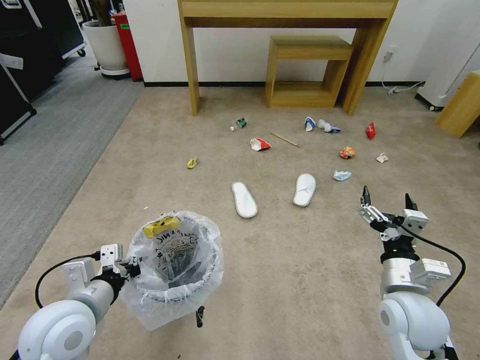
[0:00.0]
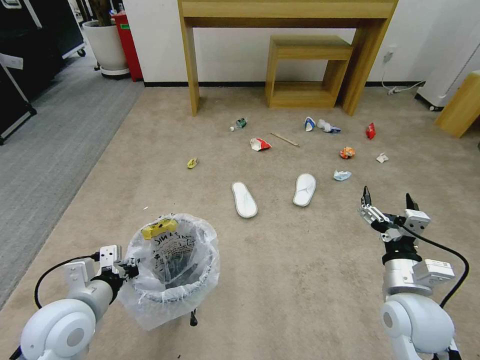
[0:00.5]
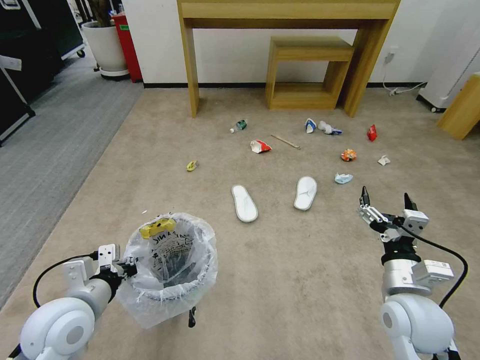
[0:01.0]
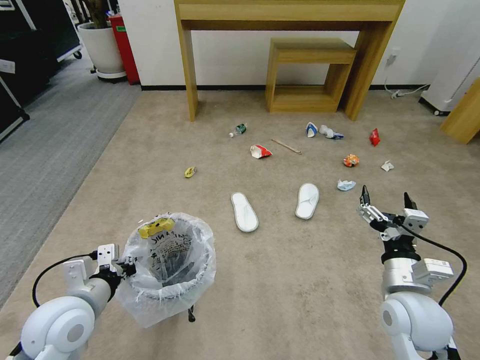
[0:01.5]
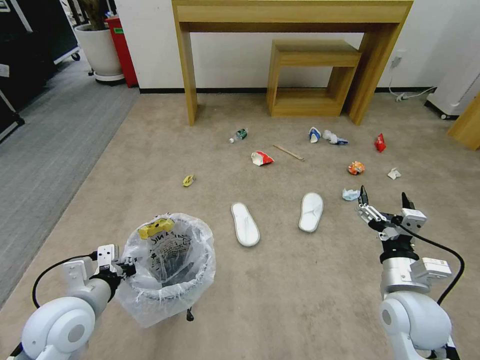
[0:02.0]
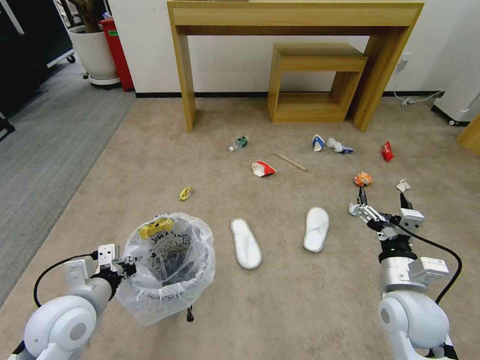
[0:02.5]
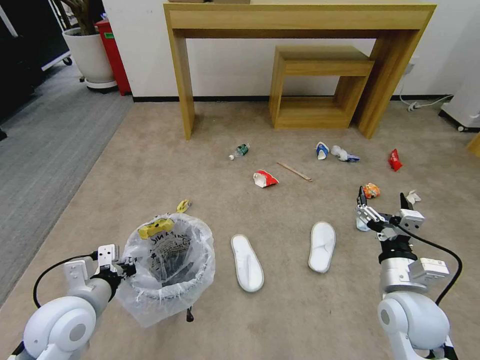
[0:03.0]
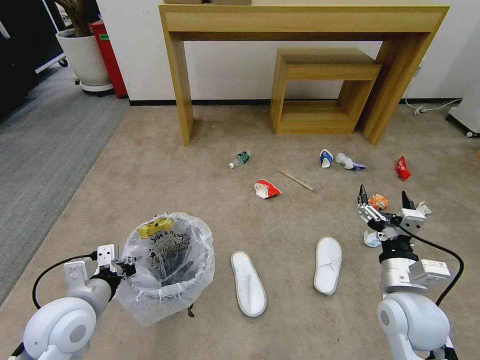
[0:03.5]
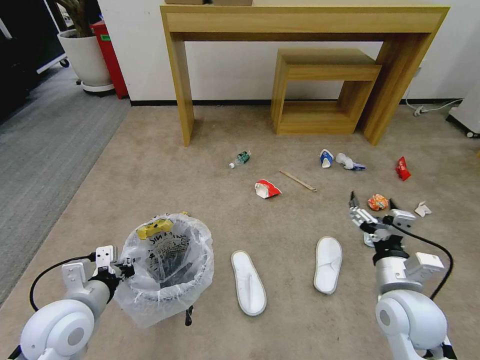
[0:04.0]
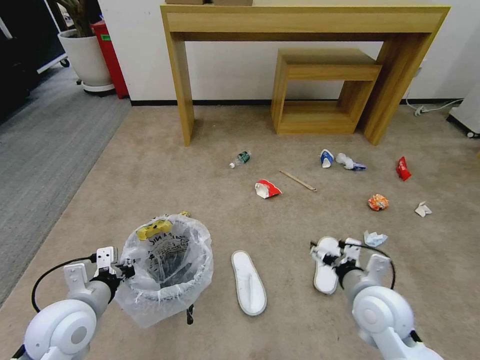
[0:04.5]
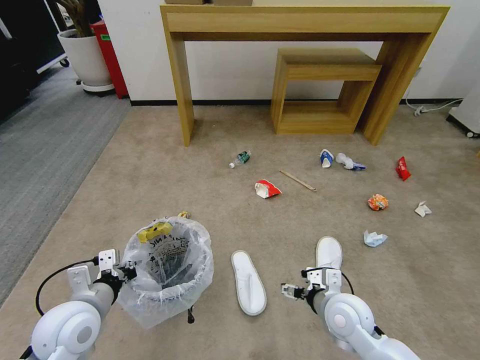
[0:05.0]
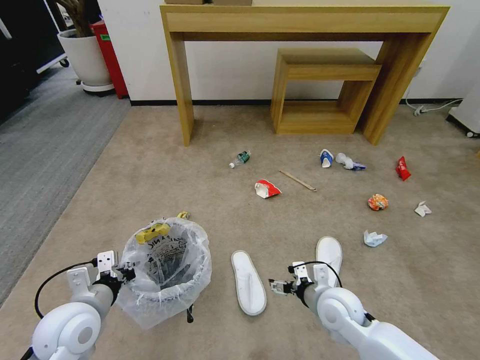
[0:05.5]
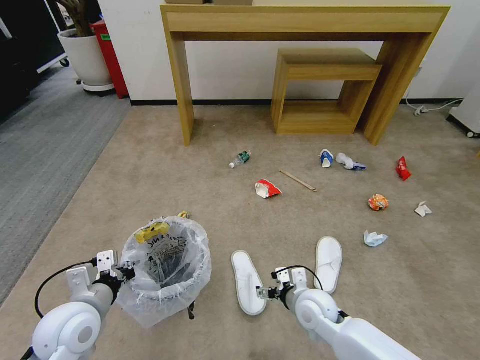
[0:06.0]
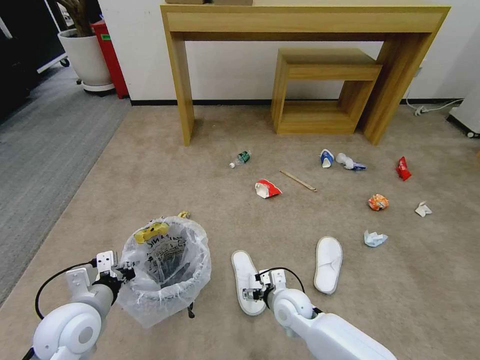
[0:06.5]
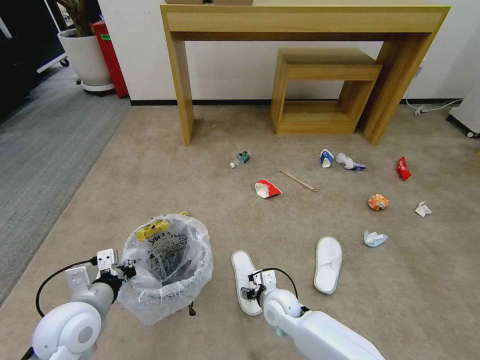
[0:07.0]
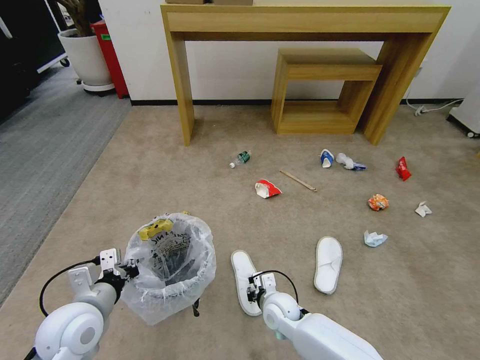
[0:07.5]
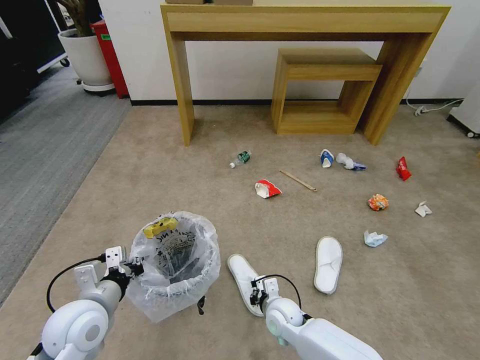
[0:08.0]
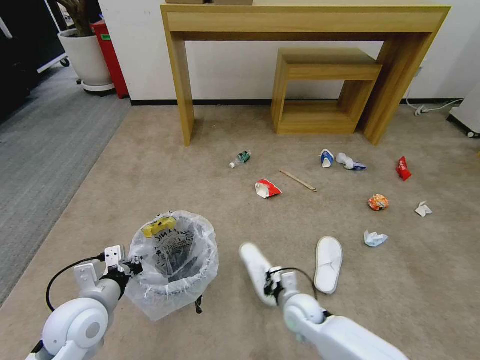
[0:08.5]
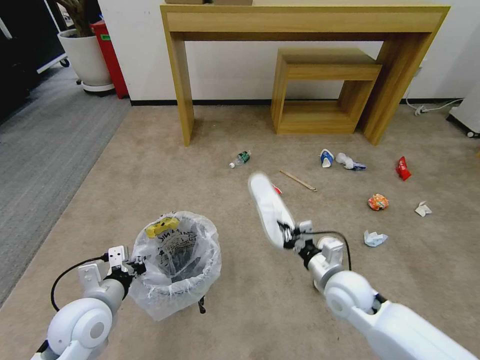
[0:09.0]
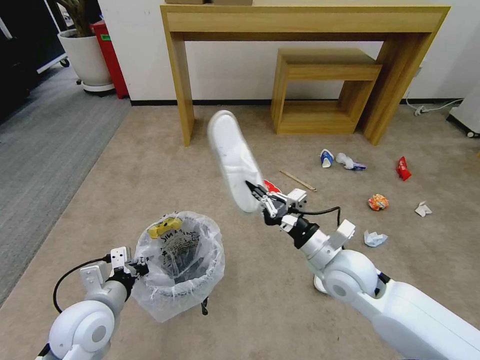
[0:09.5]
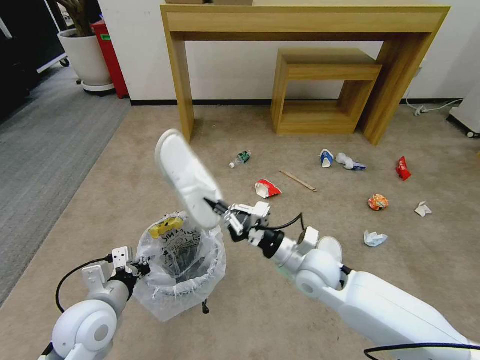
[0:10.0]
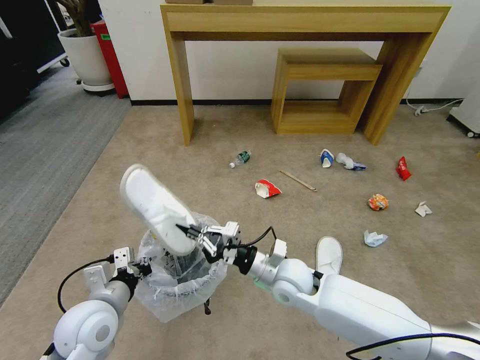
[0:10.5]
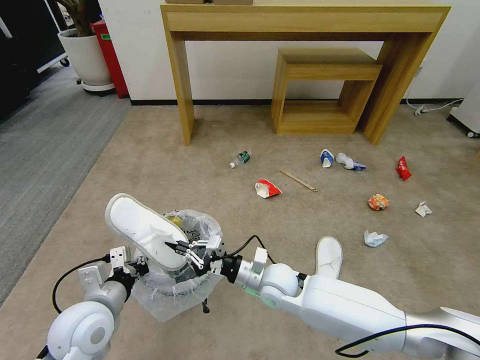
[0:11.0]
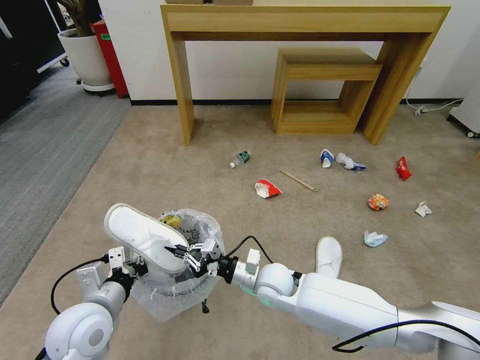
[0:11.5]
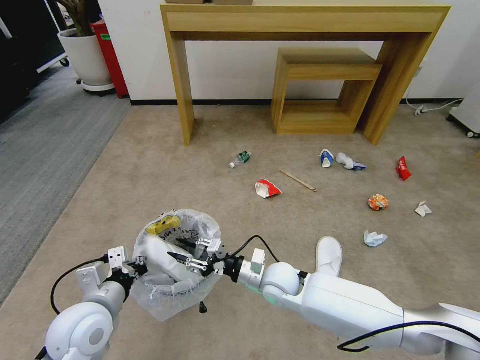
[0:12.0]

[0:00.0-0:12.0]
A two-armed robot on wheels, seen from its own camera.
Task of the whole recording: Pick up the trash bin and place the garbage on the floor into it.
0:00.0 to 0:02.0: The grippers move only a little.
0:04.0 to 0:06.0: The right gripper moves downward and to the left, about 20 cm.
0:06.0 to 0:08.0: The right gripper shifts approximately 10 cm downward and to the left, and closes.
0:08.0 to 0:10.0: The right gripper shifts approximately 20 cm upward.
0:10.0 to 0:12.0: The right gripper heads downward and to the left, covering about 10 cm, and opens its fingers.

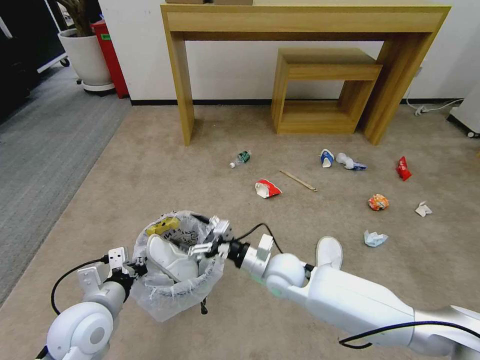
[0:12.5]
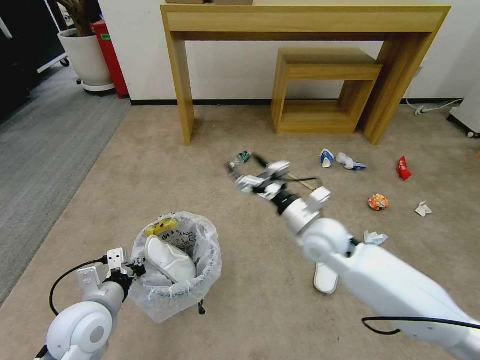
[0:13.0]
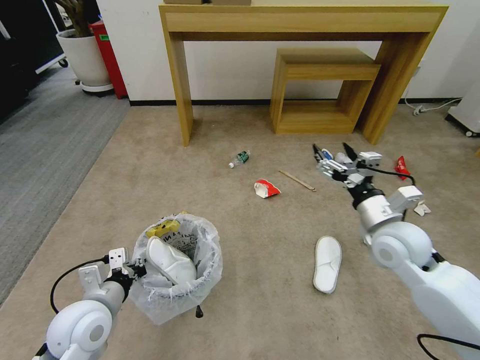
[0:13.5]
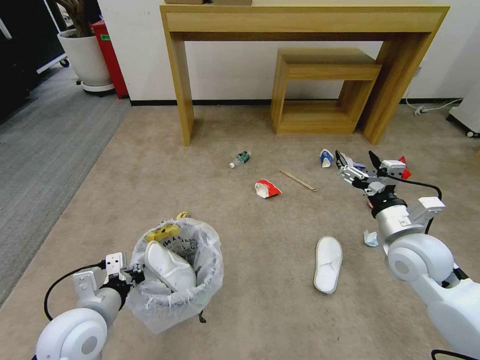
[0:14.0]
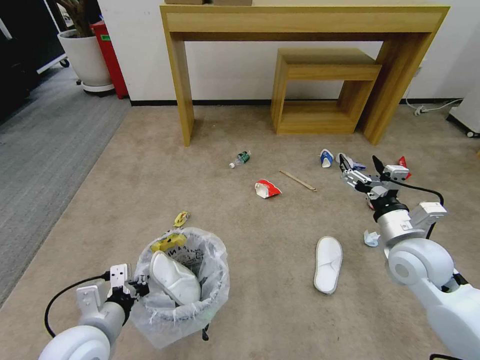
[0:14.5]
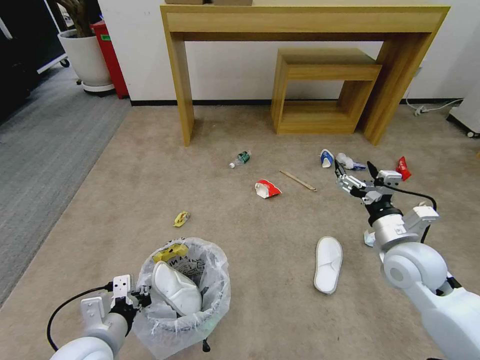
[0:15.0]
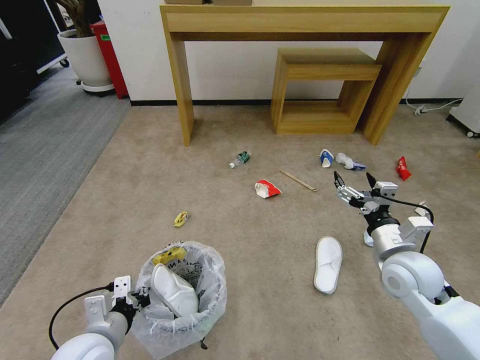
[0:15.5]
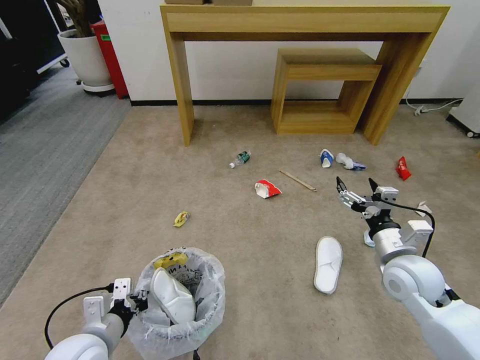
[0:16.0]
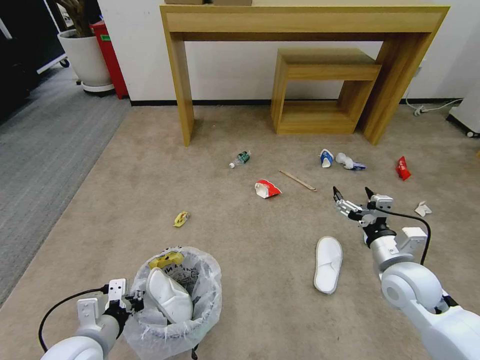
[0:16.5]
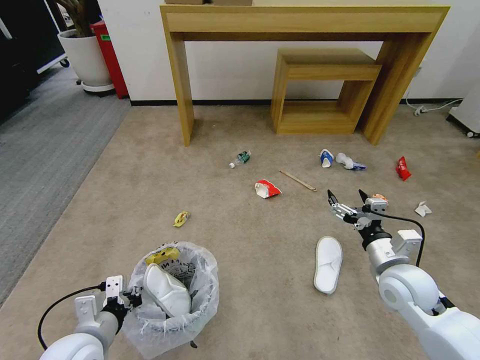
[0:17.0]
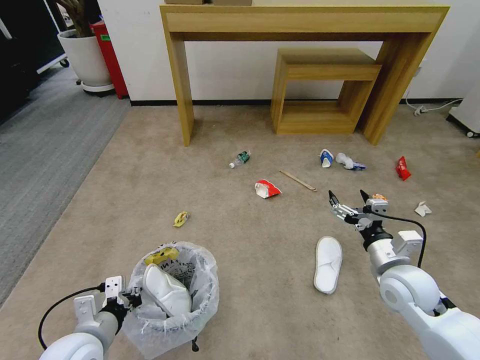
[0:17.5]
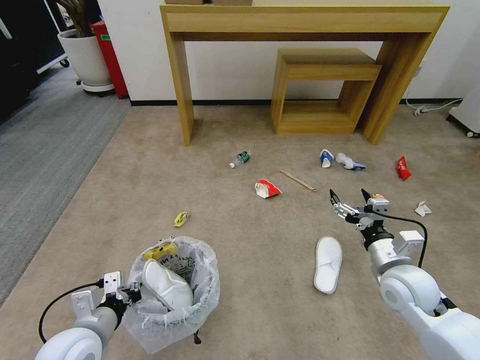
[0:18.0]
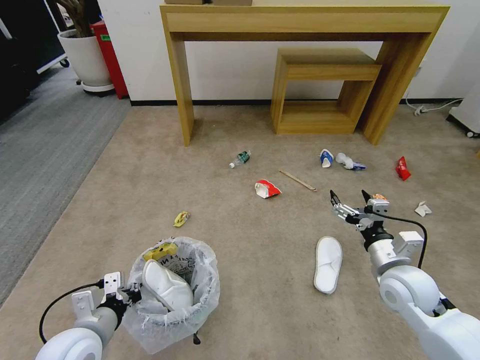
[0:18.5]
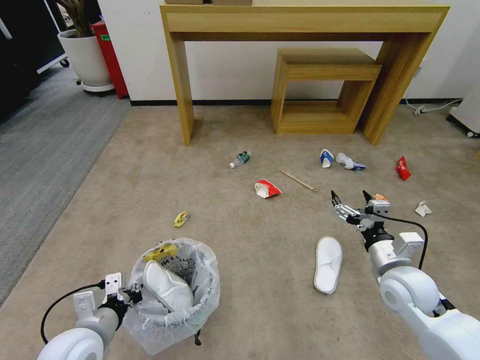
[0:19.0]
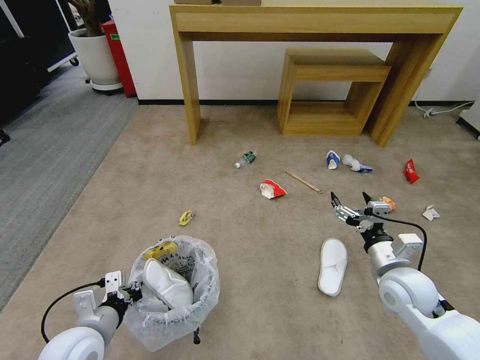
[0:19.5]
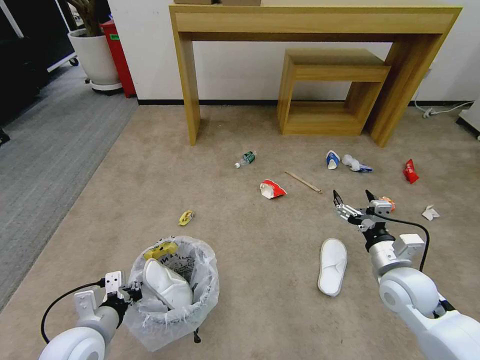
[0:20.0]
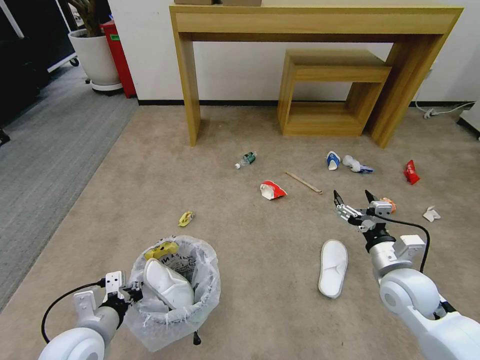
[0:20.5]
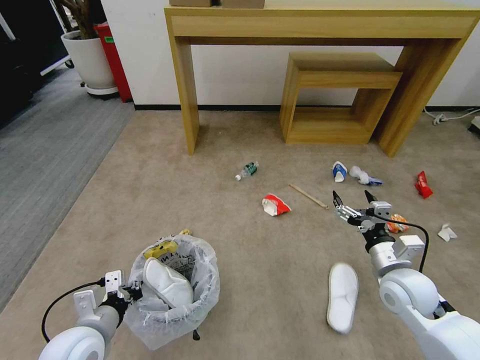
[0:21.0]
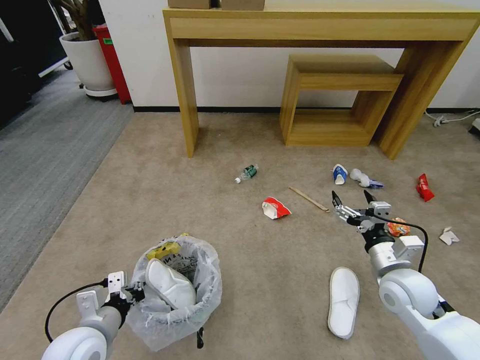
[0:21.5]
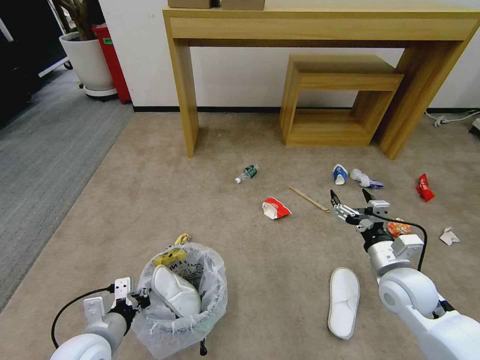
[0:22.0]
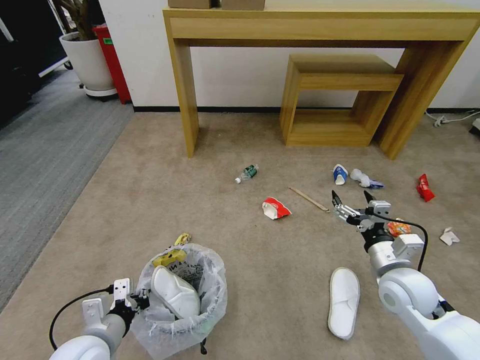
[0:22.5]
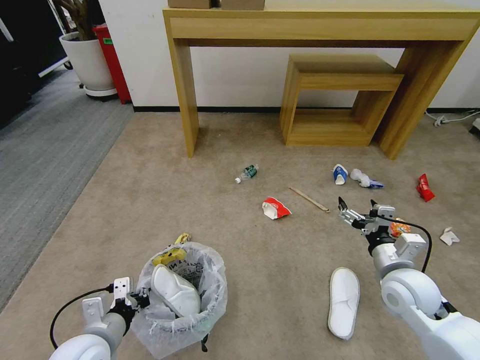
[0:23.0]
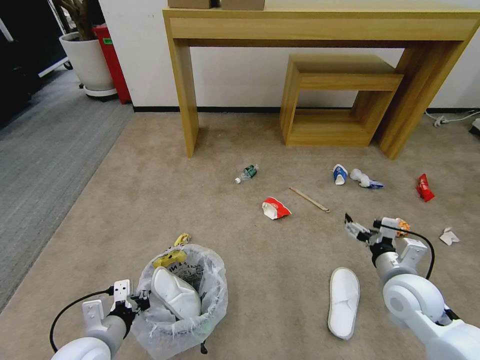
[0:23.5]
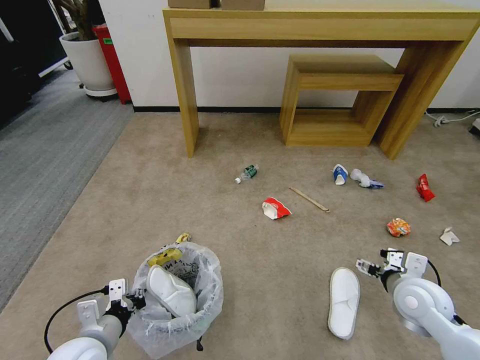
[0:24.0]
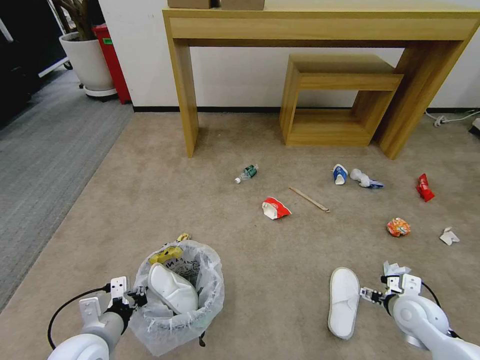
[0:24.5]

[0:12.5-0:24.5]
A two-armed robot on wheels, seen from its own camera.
Task of the whole recording: Pick up the trash bin and place the garbage on the floor into it.
0:12.5 to 0:14.5: The right gripper shifts about 25 cm to the right and upward.
0:14.5 to 0:16.5: The right gripper moves downward, about 5 cm.
0:16.5 to 0:18.5: There are only small adjustments of the grippers.
0:18.5 to 0:20.5: Both grippers stay put.
0:22.5 to 0:24.5: The right gripper heads downward and to the right, covering approximately 10 cm.

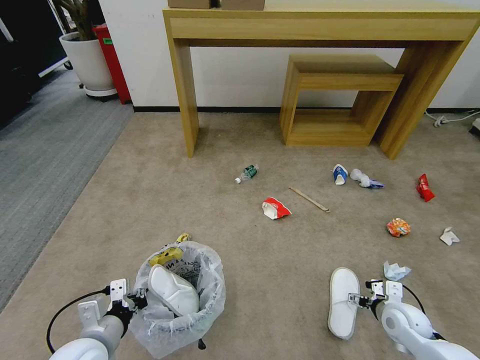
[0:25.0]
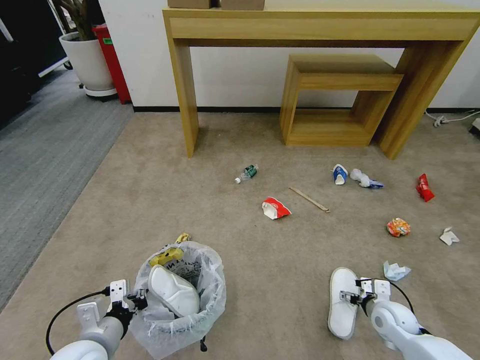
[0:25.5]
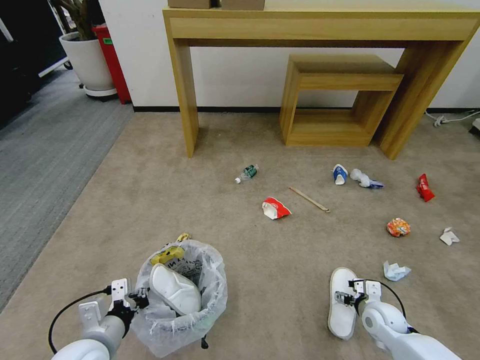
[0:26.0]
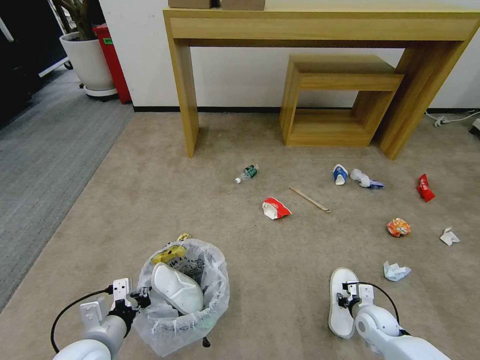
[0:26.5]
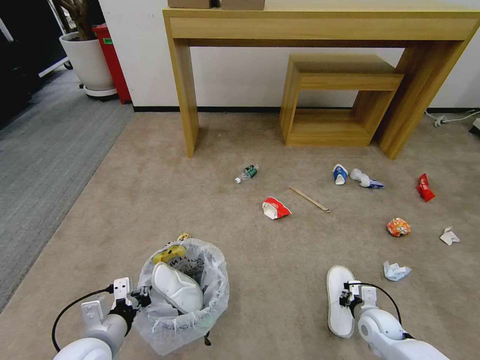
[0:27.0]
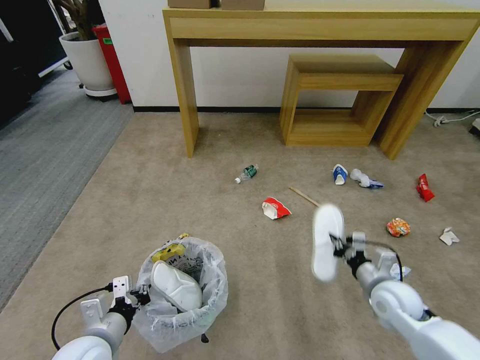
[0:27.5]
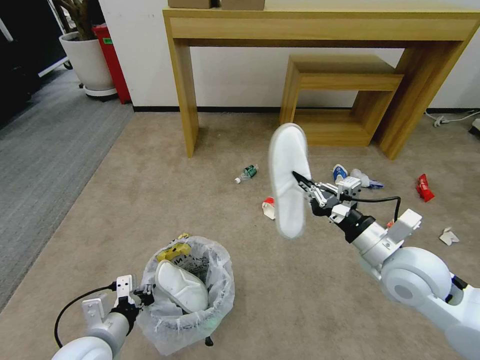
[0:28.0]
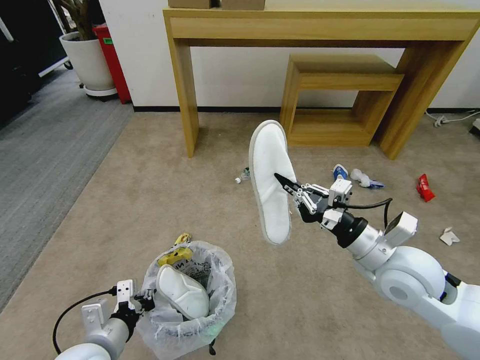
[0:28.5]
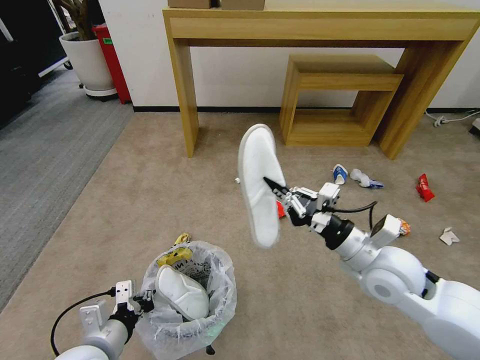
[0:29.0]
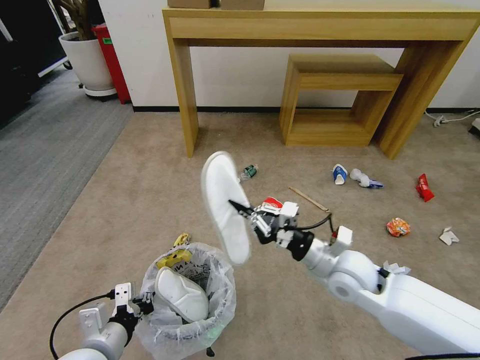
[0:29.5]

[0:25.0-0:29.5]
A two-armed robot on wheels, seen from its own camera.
Task of the whole recording: Pick up the trash bin and place the garbage on the floor into it.
0:25.0 to 0:27.0: The right gripper is displaced downward by approximately 5 cm, and closes its fingers.
0:27.0 to 0:29.5: The right gripper is displaced upward and to the left by some 30 cm.
